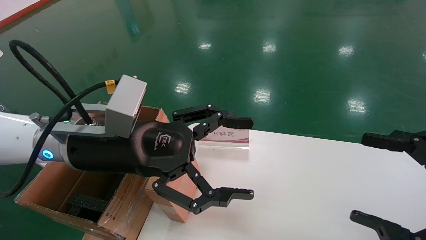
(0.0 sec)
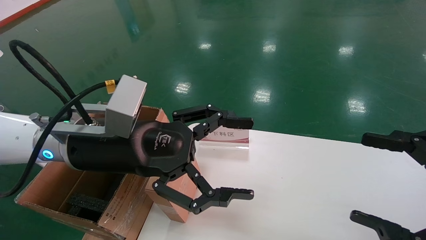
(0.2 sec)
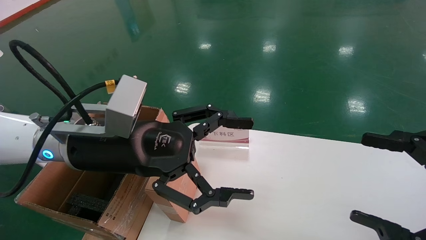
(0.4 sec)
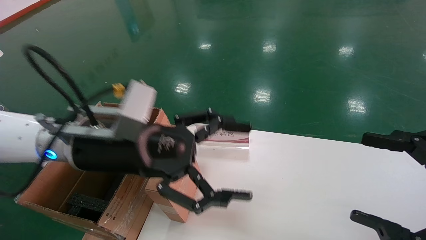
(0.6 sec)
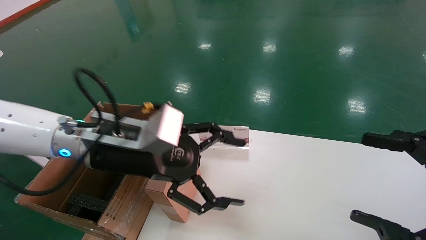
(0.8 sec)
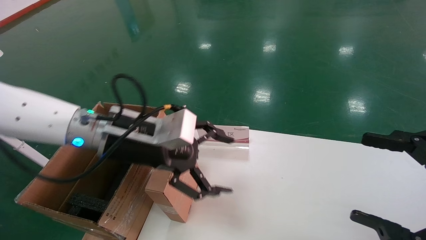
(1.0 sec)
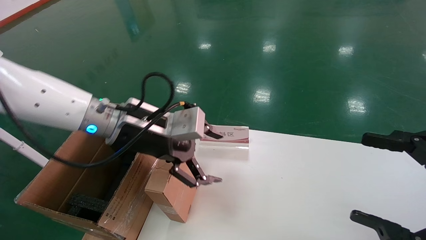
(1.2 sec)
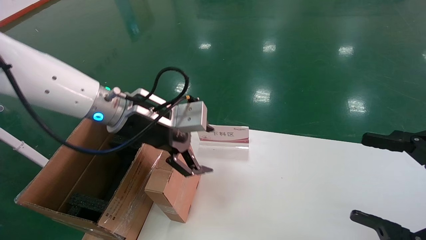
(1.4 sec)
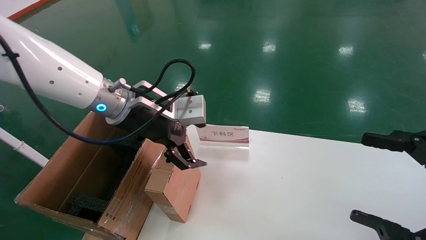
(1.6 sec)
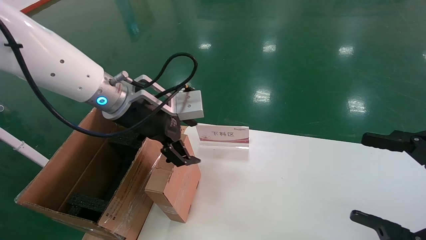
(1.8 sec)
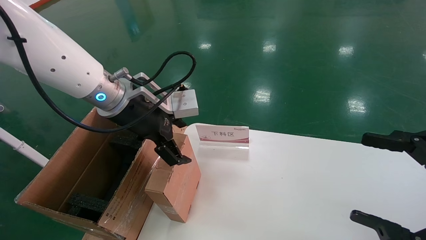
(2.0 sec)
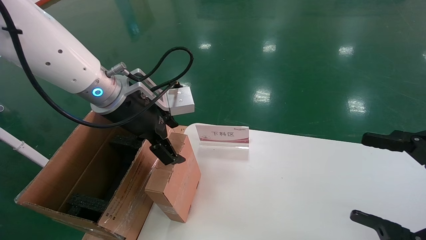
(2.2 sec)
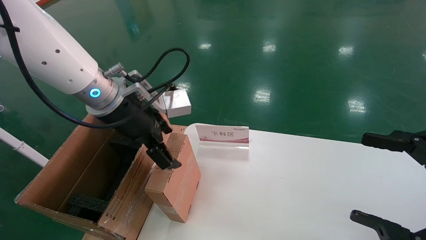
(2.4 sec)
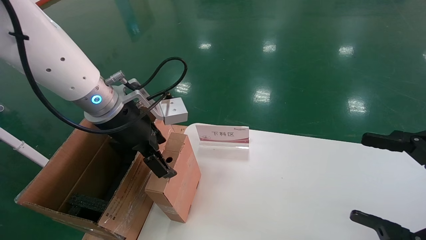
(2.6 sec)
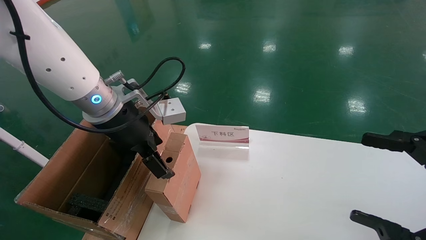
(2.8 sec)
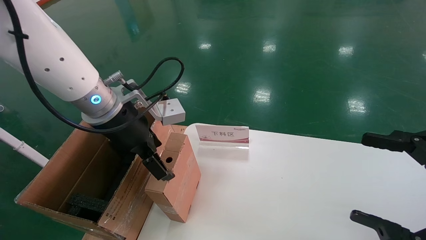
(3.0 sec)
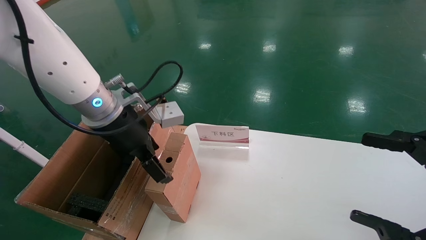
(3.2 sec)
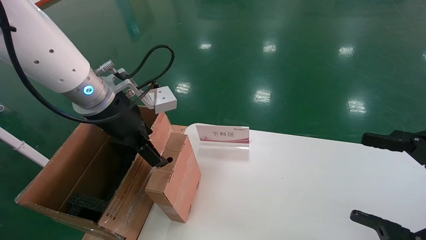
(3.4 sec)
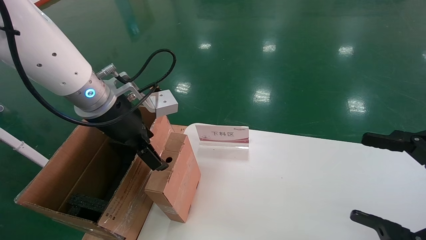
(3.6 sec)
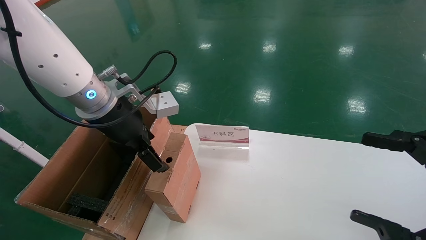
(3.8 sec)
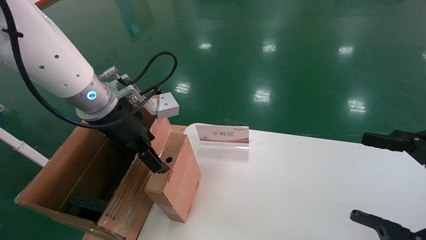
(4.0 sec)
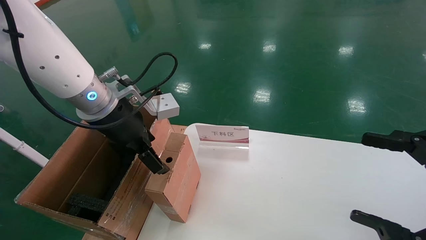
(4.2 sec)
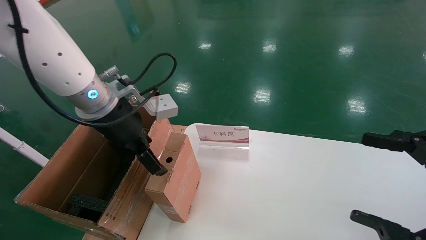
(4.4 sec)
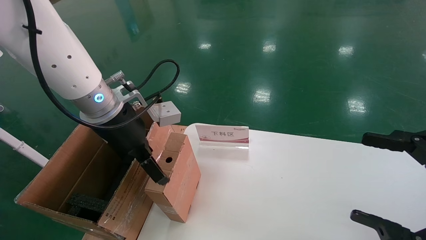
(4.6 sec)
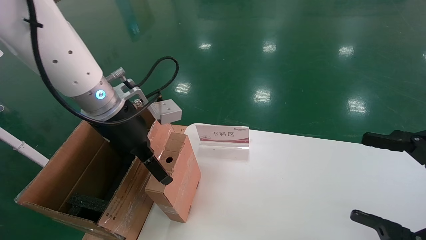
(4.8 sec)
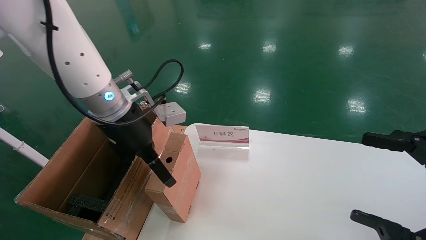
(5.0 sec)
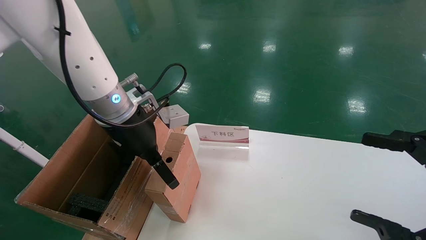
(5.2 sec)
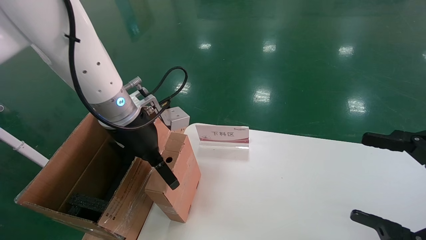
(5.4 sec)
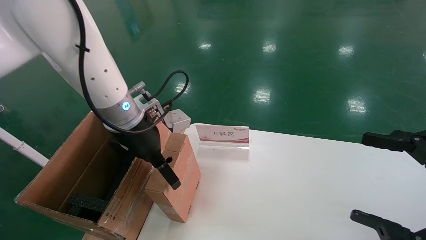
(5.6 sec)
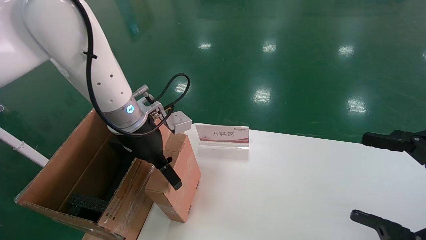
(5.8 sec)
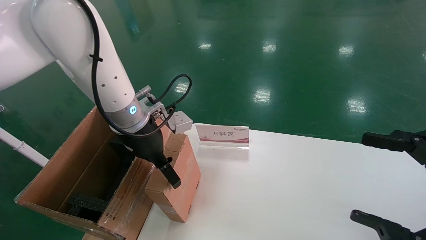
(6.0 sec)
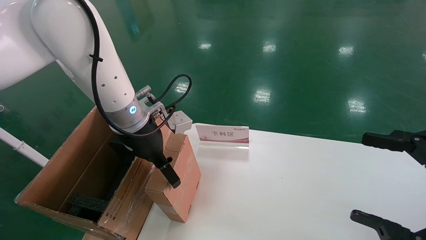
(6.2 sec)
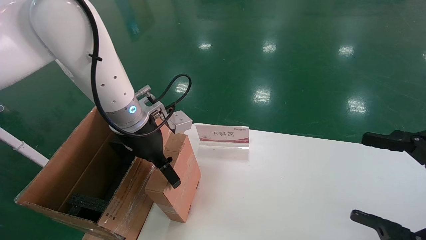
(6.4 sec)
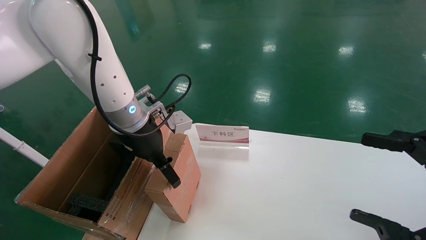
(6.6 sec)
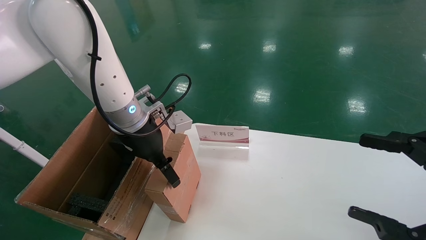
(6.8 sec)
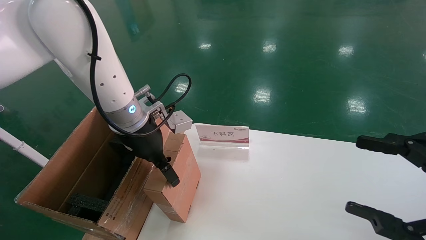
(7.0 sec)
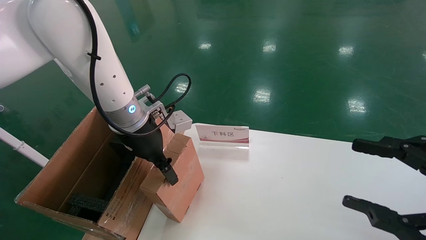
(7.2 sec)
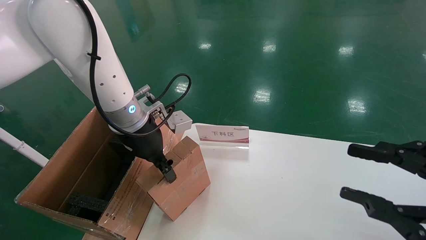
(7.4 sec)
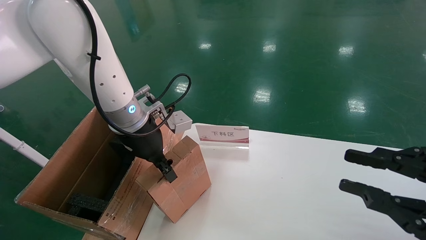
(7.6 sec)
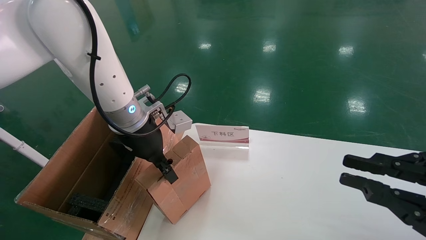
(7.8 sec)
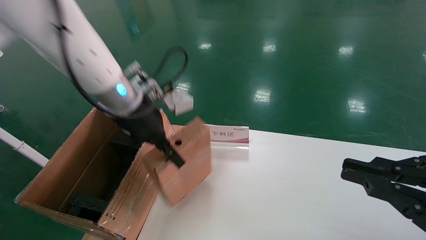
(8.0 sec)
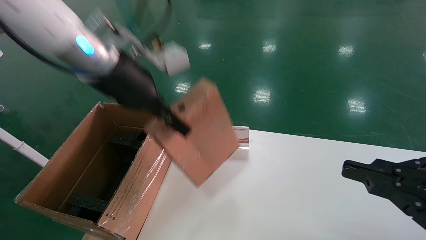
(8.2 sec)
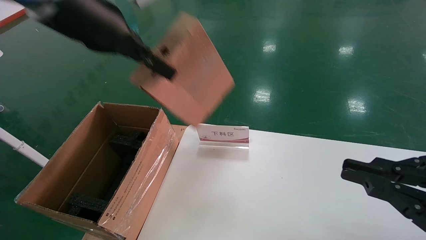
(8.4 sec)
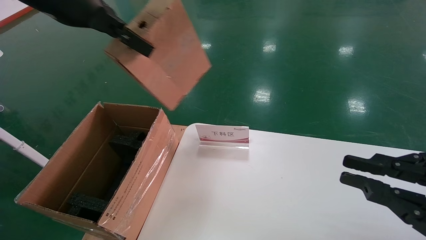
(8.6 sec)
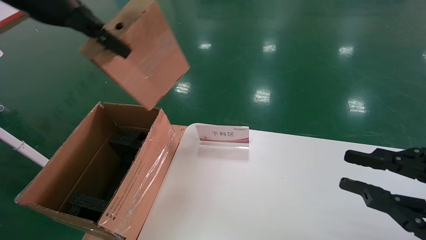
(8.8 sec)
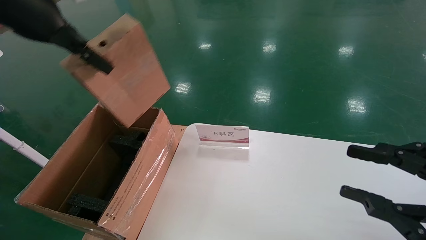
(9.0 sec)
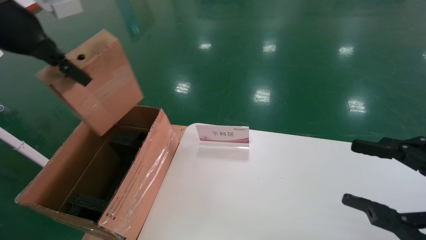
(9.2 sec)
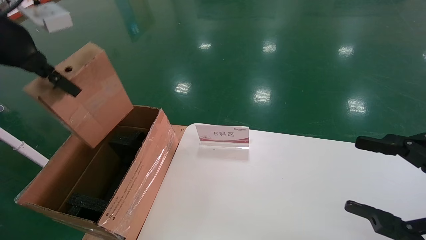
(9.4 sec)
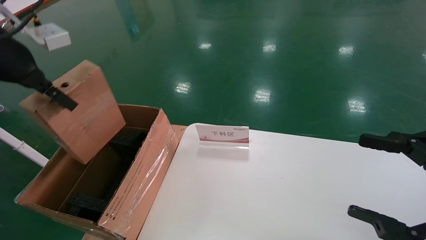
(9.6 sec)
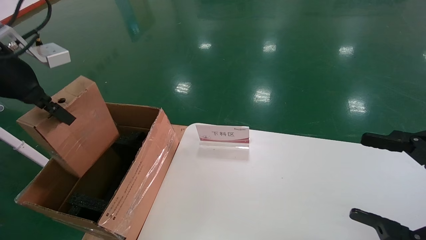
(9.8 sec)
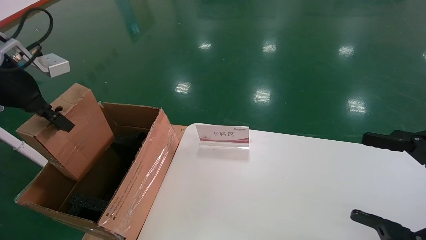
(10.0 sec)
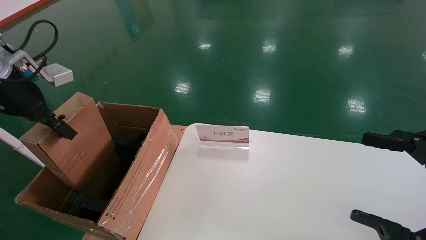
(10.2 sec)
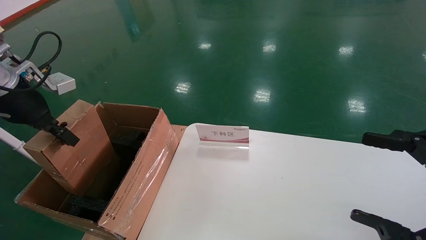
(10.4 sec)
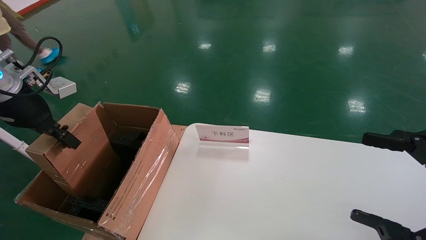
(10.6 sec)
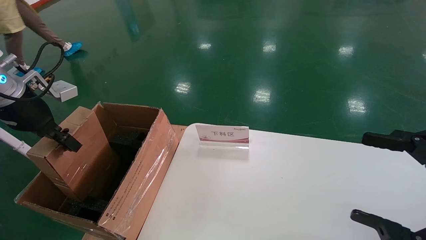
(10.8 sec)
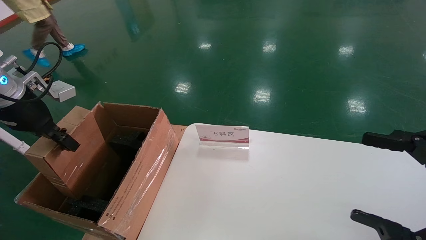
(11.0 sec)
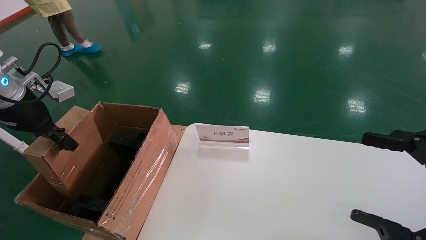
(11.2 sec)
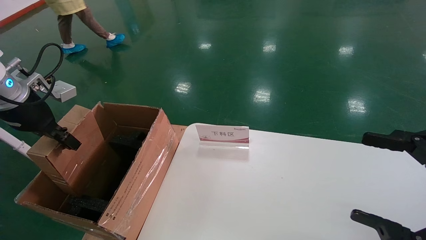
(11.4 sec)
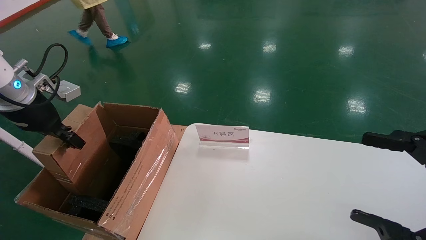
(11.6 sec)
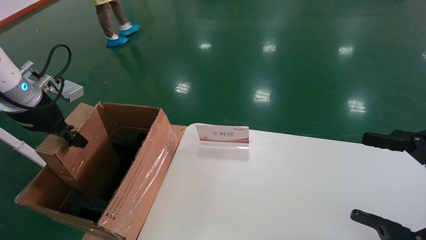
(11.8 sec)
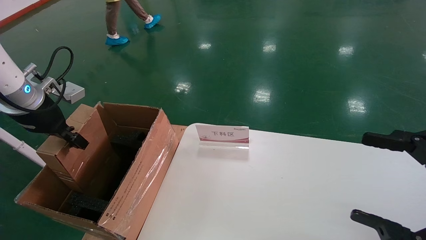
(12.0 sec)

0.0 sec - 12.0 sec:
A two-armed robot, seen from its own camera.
Task of the whole recording: pick up the small cardboard box and load it into the large cardboard box.
Step, 1.0 sec - 7.4 sec: Pick up the mouse and power cord box.
0.0 sec - 1.6 sec: The left gripper goes roughly 10 cm forward.
3.0 sec - 4.4 sec: There are only small adjustments of the grippers.
4.4 sec - 6.0 sec: The left gripper ends up approximately 5 cm from where it was.
6.0 sec - 7.6 sec: The right gripper closes, while the left gripper closes its fingers.
7.6 sec - 9.0 sec: The left gripper is displaced upward, to the left and backward by some 25 cm.
9.0 sec - 10.4 sec: The left gripper heads downward and to the left, covering about 15 cm. The right gripper opens its fingers.
10.4 sec - 12.0 sec: The grippers stay close to where they were, moving slightly.

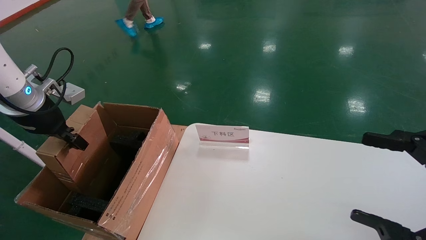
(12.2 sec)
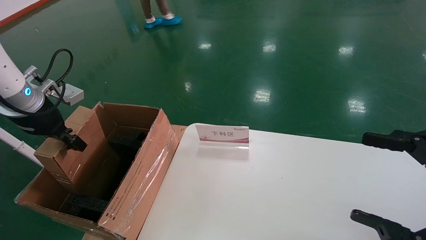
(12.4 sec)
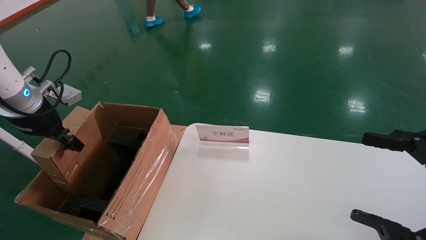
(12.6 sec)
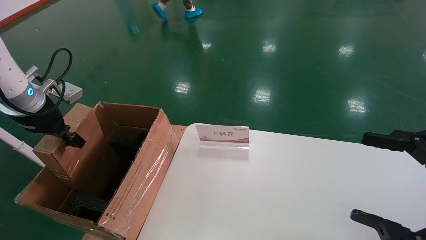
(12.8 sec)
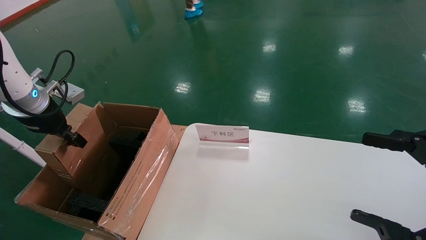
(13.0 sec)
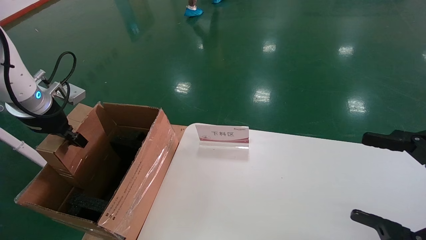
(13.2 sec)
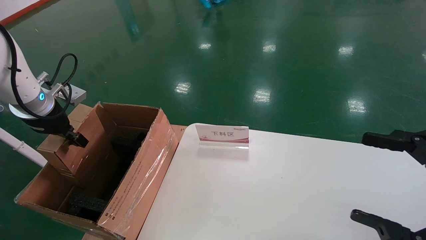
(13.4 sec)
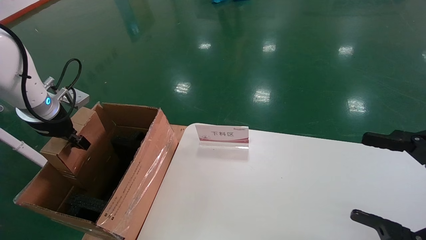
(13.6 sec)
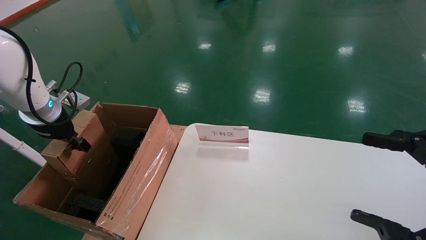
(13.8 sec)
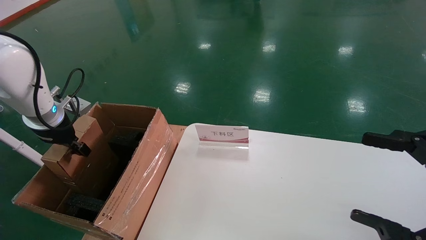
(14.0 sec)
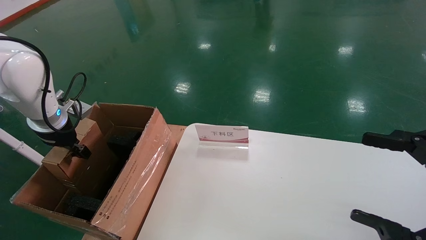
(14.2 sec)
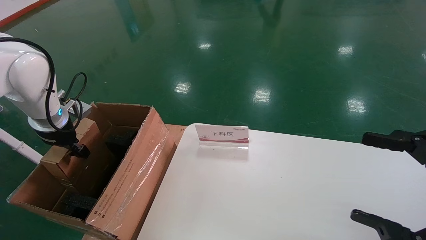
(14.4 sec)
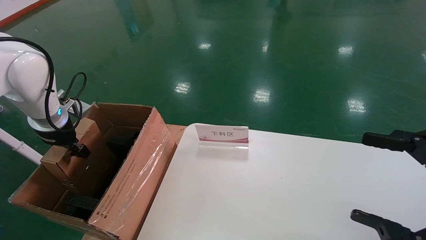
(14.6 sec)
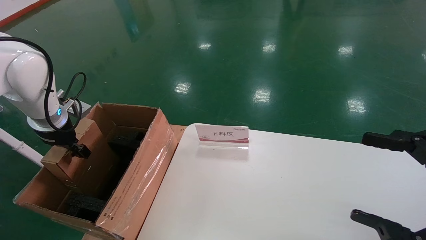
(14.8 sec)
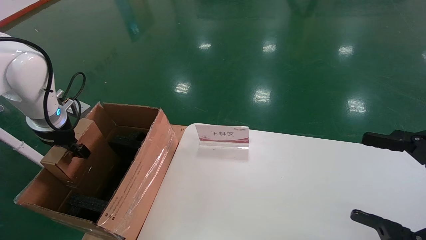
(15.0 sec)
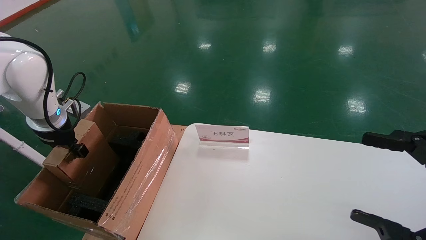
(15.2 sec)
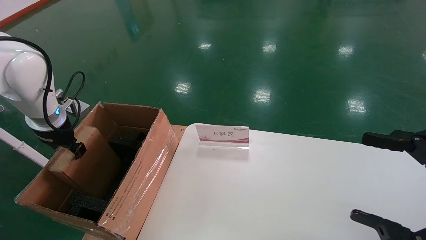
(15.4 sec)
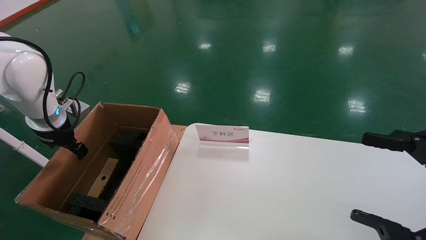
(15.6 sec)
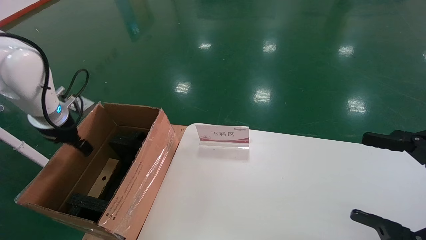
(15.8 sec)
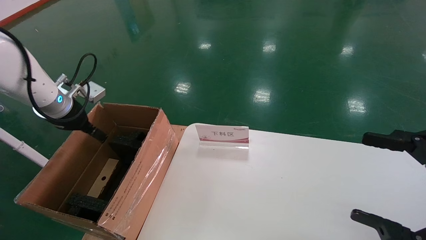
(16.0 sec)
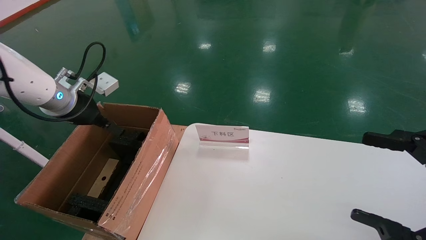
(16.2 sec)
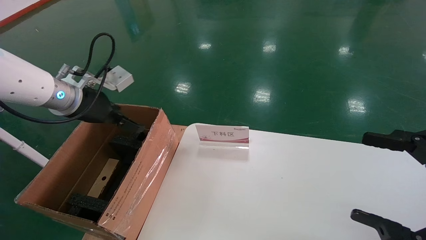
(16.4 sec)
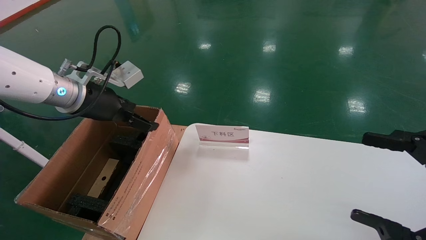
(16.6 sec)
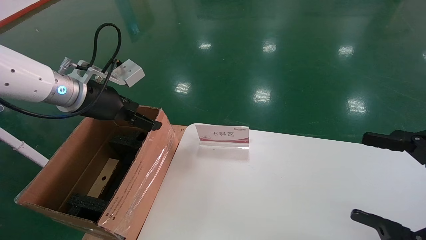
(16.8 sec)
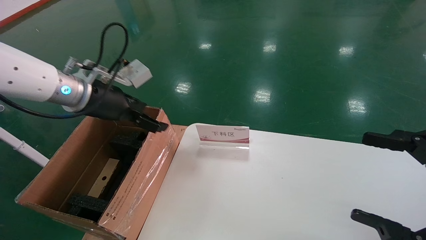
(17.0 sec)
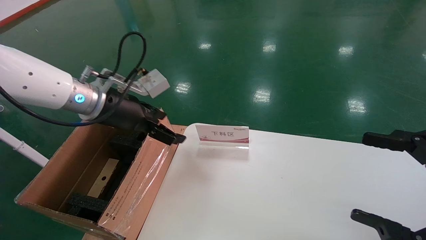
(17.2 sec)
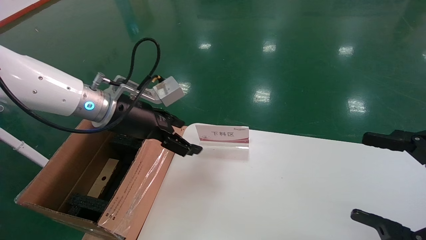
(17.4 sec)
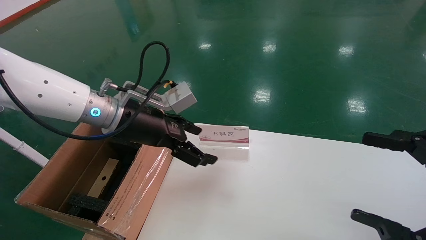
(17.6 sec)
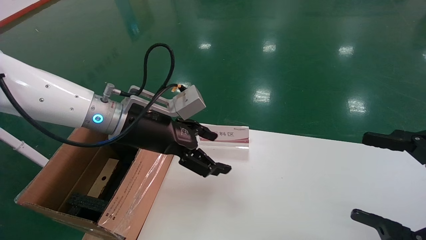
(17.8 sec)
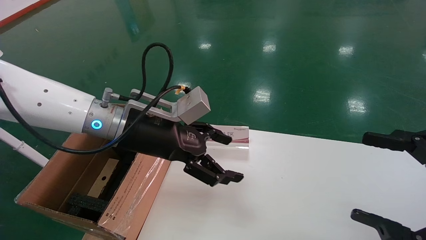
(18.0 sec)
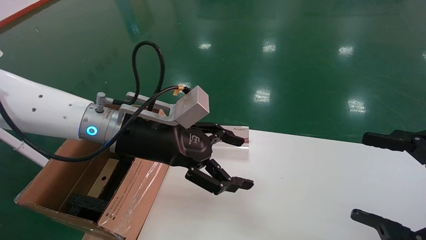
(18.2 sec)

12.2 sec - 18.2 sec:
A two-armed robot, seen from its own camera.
Task of the whole recording: pick up the small cardboard box and load it into the large cardboard box.
Step, 12.2 sec - 15.6 sec: Place the mouse and power cord box into the case.
12.2 sec - 13.8 sec: The left gripper moves roughly 5 cm.
13.8 sec - 15.2 sec: The grippers move only a little.
15.2 sec - 16.6 sec: The left gripper heads to the right and upward, covering about 15 cm, and opens.
16.6 sec - 18.2 sec: The left gripper moves to the right, roughly 15 cm.
